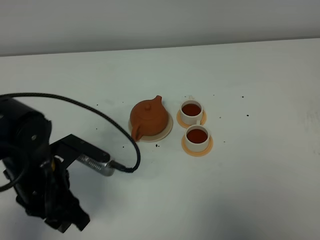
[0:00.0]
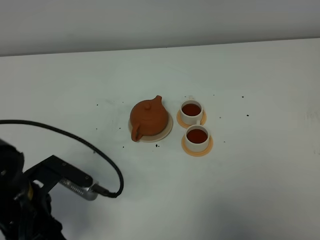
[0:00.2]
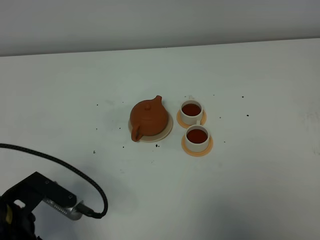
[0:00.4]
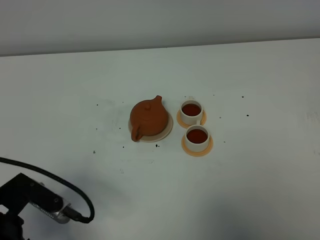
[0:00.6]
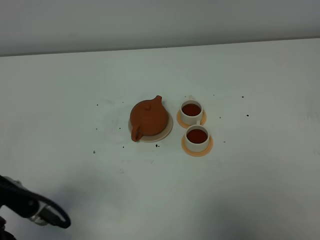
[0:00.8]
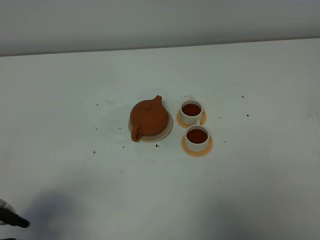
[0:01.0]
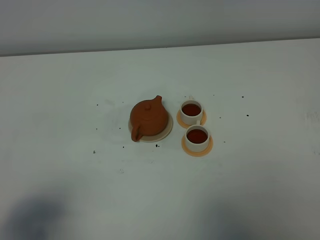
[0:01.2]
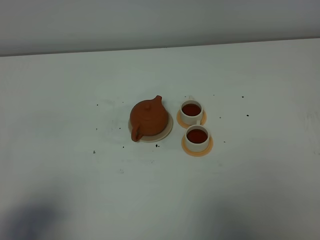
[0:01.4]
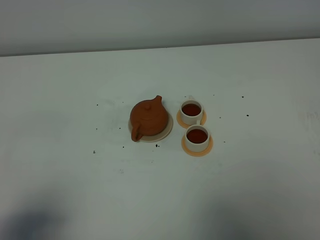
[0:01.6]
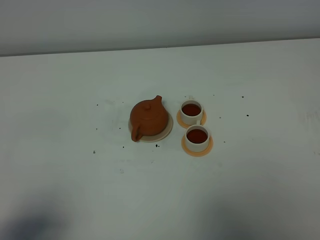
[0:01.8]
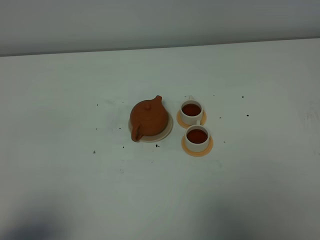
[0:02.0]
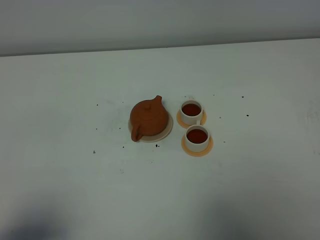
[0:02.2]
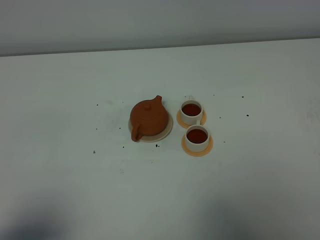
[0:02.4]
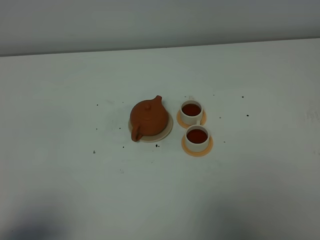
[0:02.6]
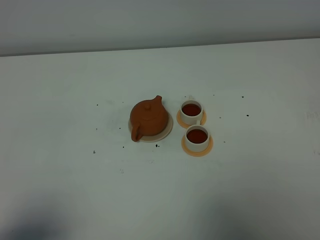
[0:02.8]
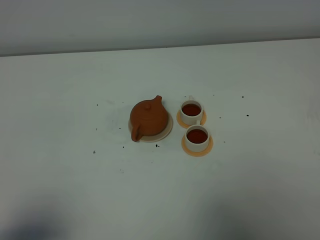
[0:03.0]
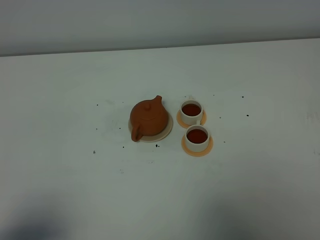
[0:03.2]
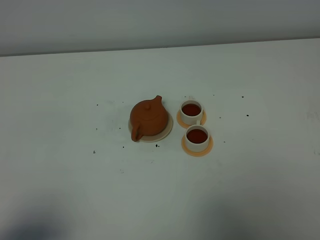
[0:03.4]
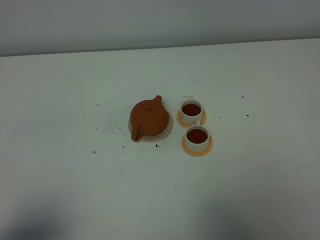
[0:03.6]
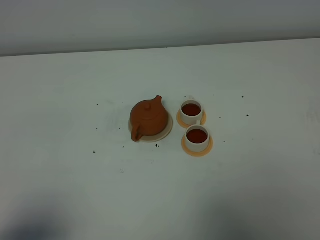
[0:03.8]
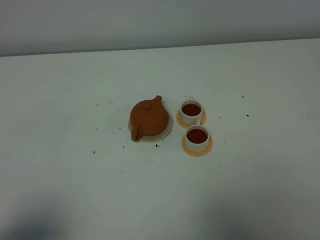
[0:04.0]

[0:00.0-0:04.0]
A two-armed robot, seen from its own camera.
Task of the whole recording: grasp the brown teapot and pour the tea into the two white teacups one by one, put the brown teapot back in its original place.
0:00.0 to 0:01.4: The left gripper travels backward, to the left and upward by some 20 cm.
0:02.6 to 0:04.0: The two grippers keep their place.

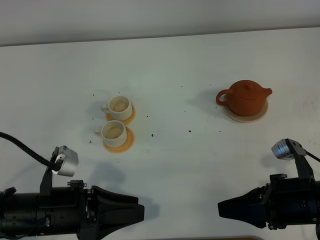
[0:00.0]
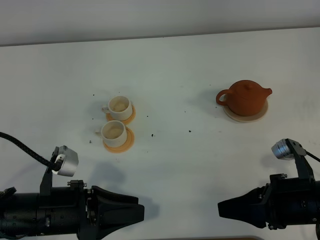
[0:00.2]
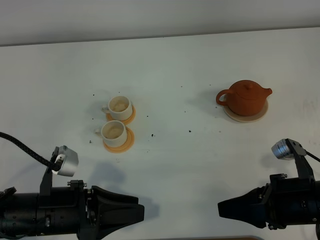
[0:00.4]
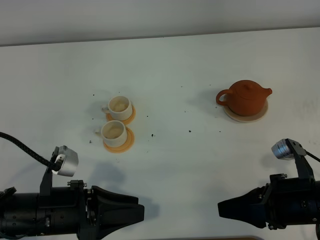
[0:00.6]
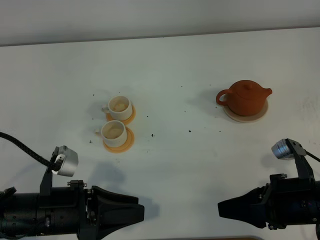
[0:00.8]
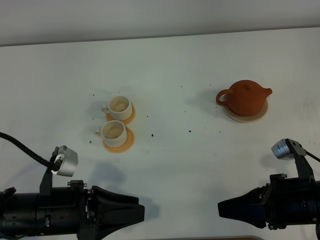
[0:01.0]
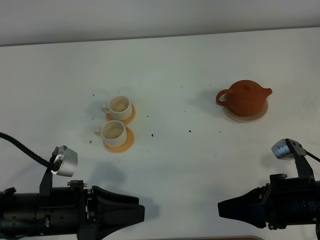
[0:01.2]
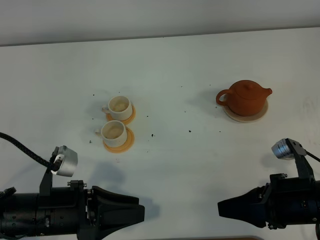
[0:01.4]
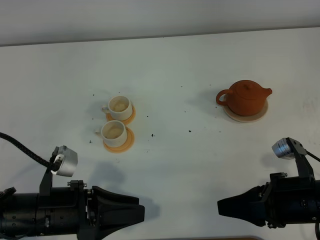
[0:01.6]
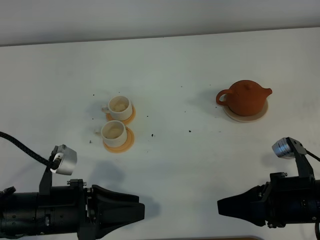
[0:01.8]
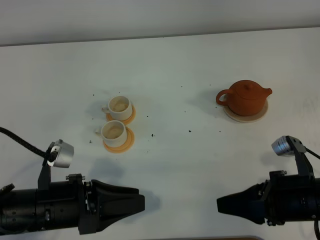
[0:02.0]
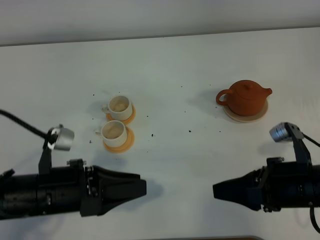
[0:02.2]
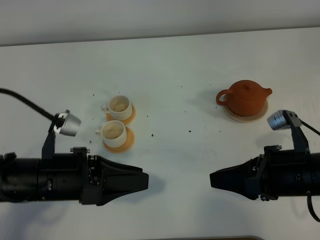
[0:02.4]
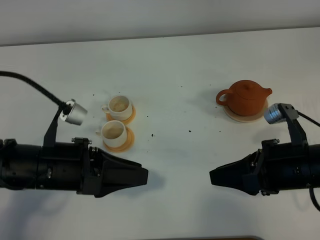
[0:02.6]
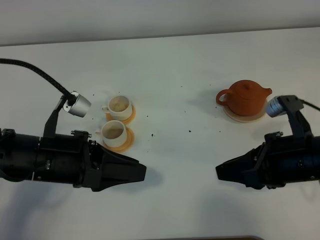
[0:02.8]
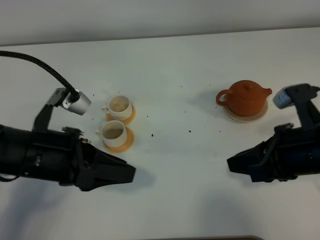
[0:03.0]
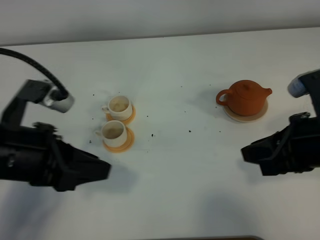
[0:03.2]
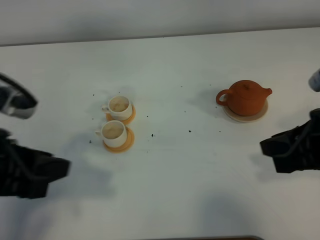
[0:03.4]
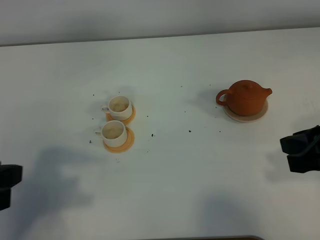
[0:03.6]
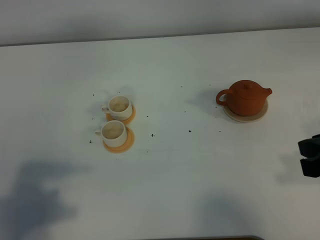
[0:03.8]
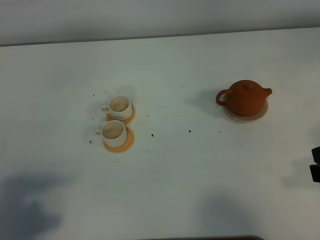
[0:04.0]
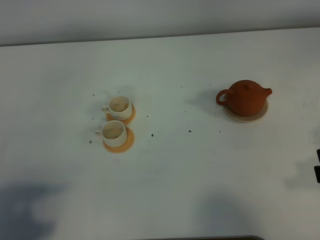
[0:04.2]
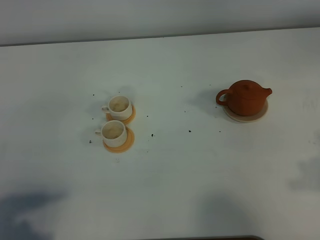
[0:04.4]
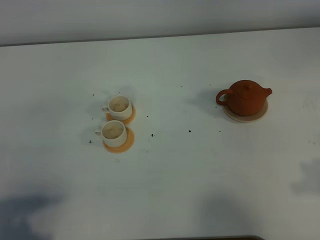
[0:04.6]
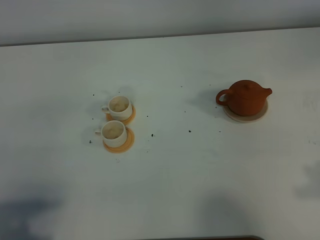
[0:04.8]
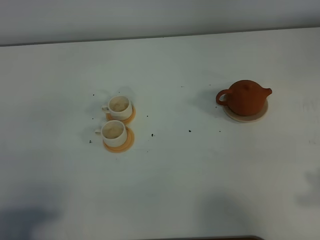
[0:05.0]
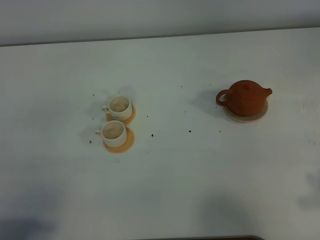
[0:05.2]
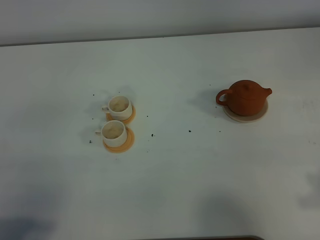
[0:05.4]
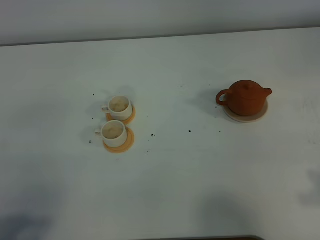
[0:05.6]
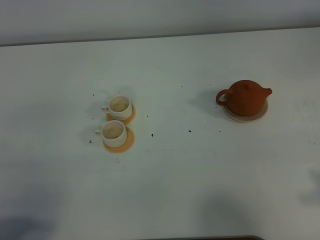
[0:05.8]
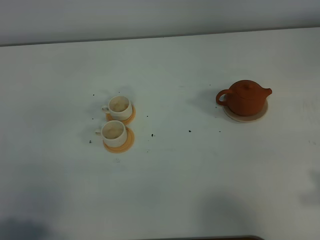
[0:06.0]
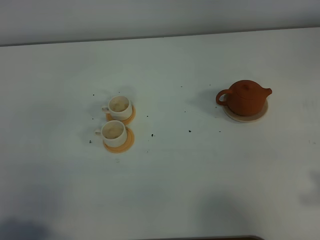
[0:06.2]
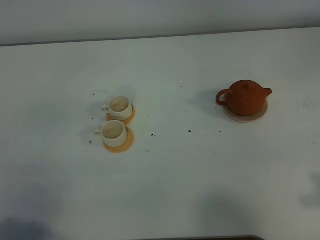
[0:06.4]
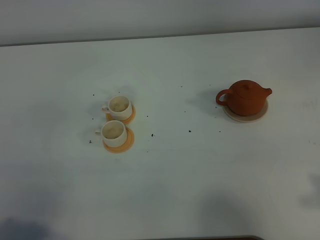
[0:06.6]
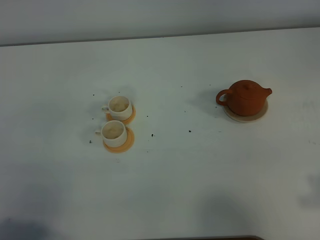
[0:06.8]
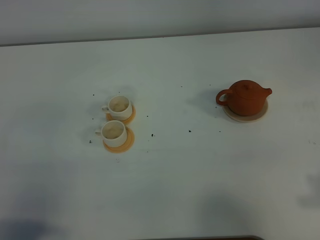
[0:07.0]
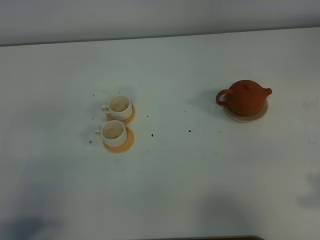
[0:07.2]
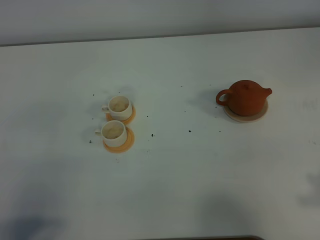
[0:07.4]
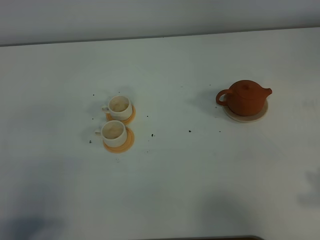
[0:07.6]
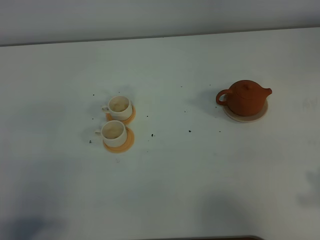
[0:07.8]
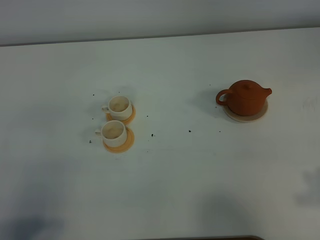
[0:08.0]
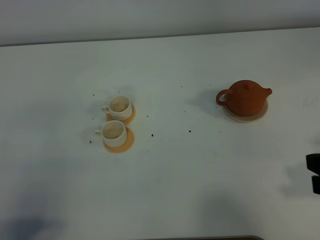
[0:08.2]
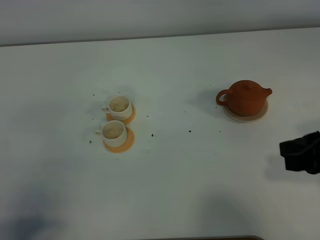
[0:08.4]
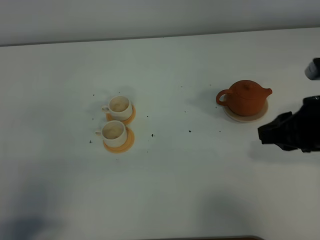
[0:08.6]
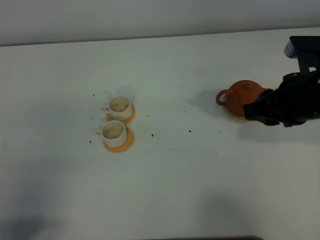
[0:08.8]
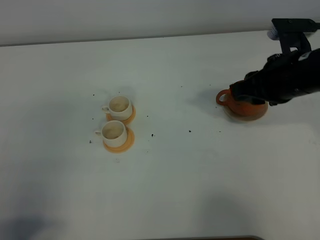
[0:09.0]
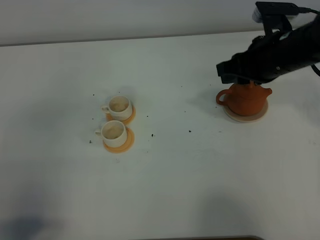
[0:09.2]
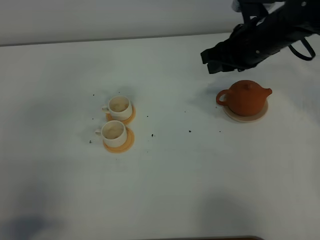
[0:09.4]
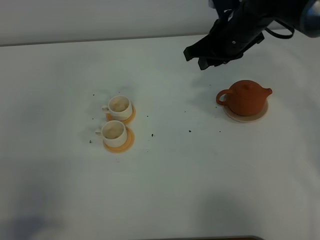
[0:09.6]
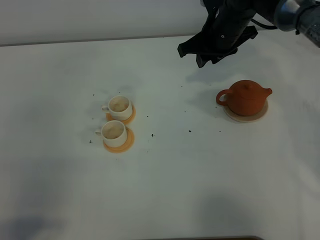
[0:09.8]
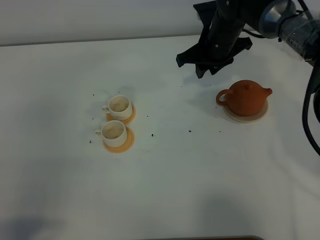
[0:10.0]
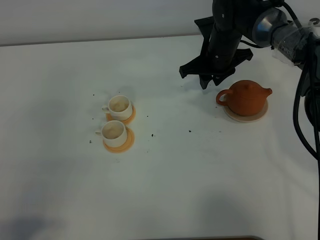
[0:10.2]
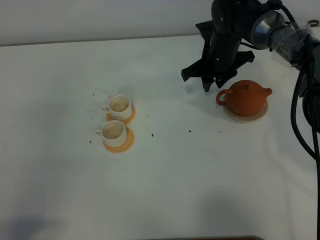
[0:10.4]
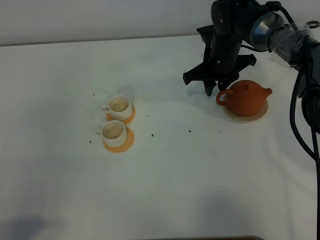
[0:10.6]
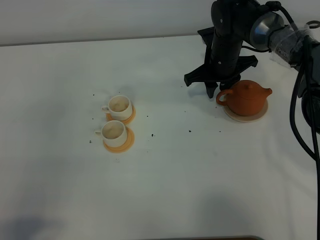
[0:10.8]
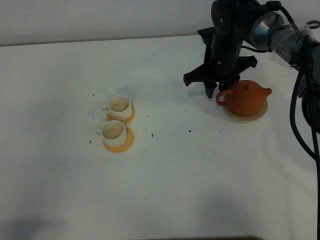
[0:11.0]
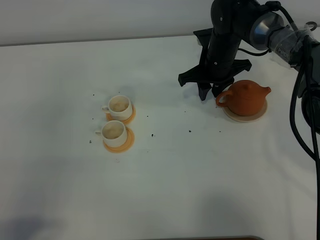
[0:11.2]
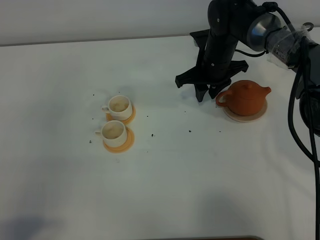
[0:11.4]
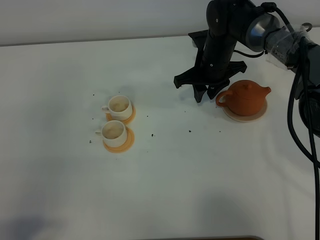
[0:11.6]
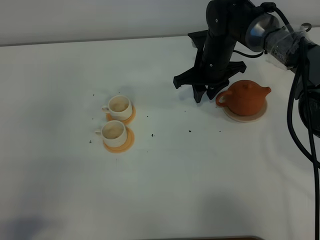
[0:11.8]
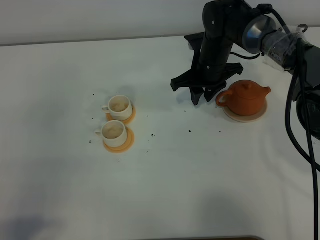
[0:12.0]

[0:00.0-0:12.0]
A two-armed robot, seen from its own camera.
Task of the whole recording: grasp the brown teapot and pour the tea into the two white teacups one by one, put the brown teapot back in its original place.
0:00.0 to 0:01.6: Both grippers stay put.
0:01.6 to 0:03.0: The right gripper heads upward, covering some 5 cm; the left gripper travels upward and forward by roughly 10 cm.
0:03.0 to 0:04.4: The left gripper moves backward and to the left, some 20 cm. Meanwhile the right gripper shifts roughly 10 cm to the right, upward and backward.
0:07.6 to 0:09.0: The right gripper goes some 25 cm forward and to the left.
0:09.0 to 0:10.4: The right gripper heads forward, to the left and downward, covering about 20 cm.
0:10.4 to 0:12.0: The grippers stay close to where they were, moving slightly.

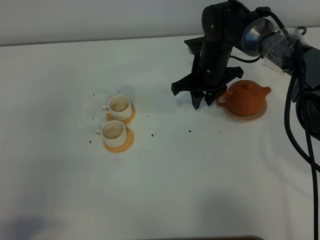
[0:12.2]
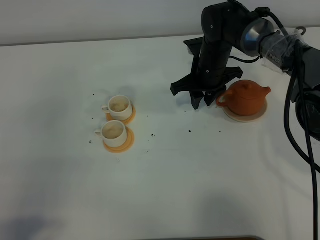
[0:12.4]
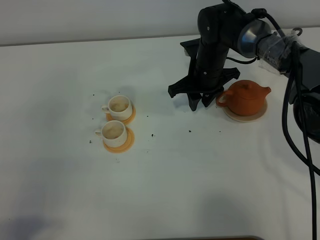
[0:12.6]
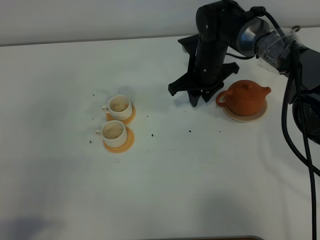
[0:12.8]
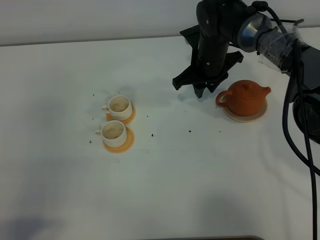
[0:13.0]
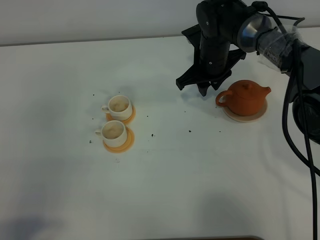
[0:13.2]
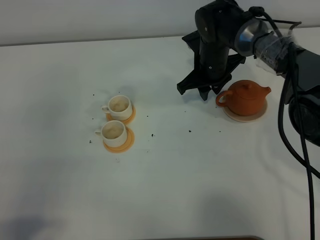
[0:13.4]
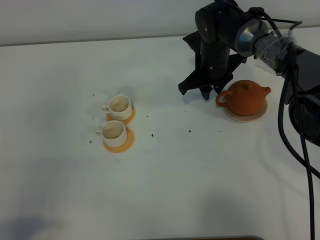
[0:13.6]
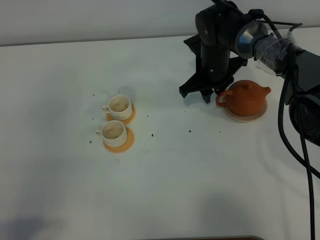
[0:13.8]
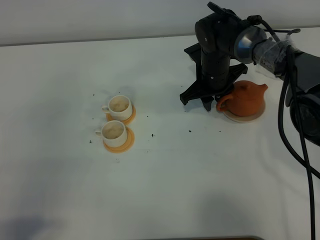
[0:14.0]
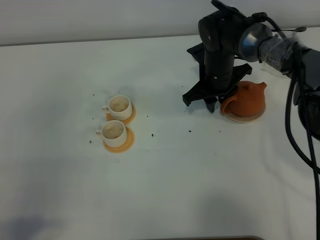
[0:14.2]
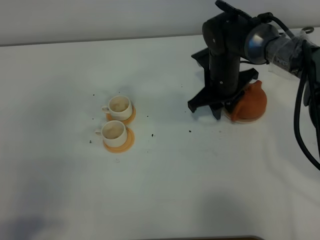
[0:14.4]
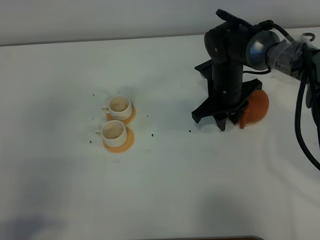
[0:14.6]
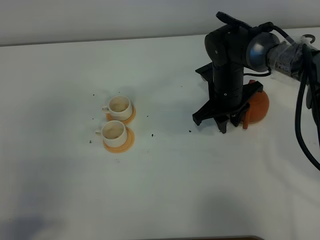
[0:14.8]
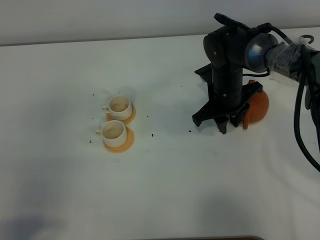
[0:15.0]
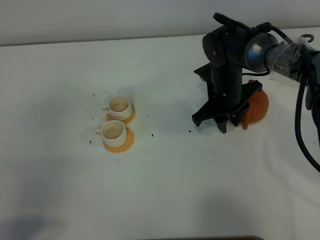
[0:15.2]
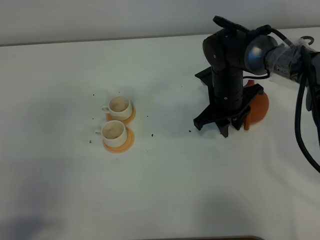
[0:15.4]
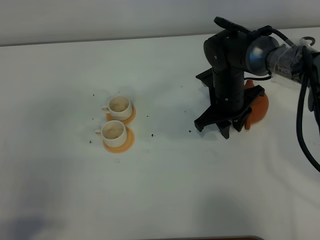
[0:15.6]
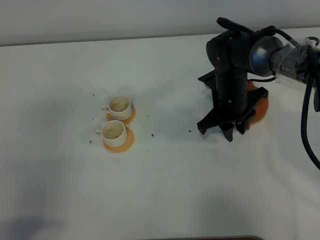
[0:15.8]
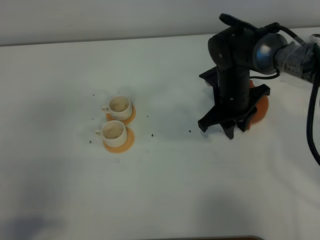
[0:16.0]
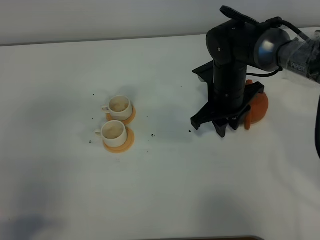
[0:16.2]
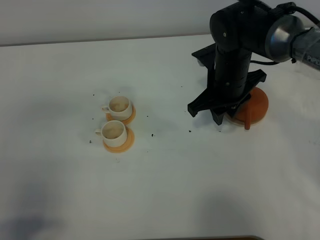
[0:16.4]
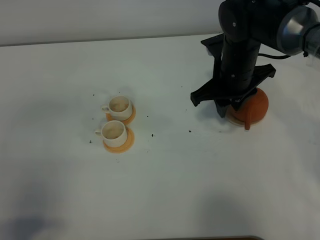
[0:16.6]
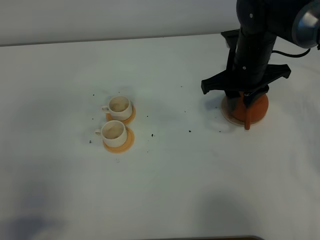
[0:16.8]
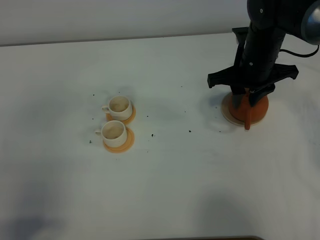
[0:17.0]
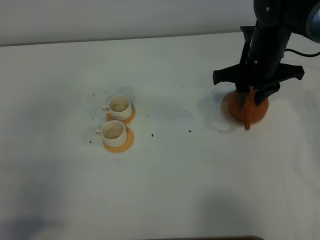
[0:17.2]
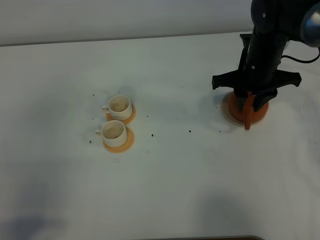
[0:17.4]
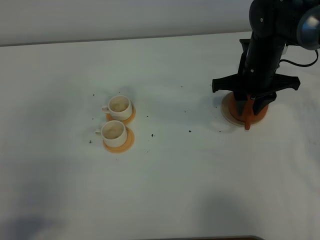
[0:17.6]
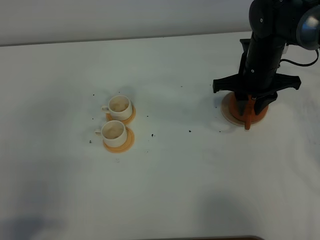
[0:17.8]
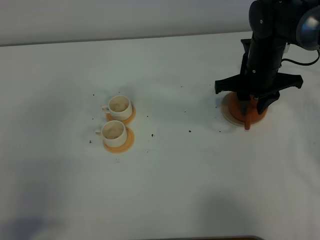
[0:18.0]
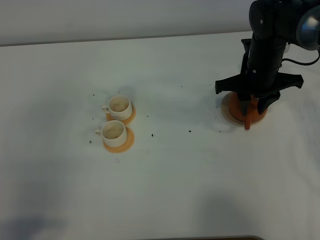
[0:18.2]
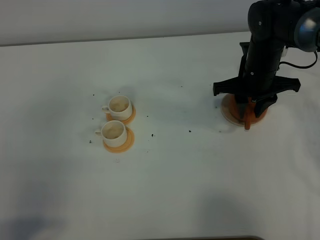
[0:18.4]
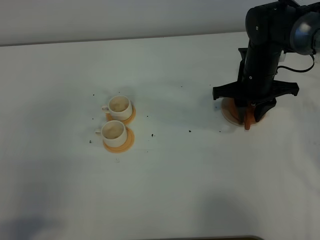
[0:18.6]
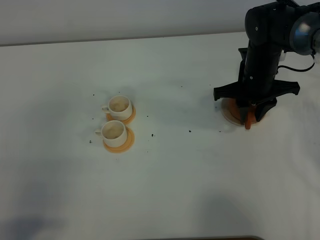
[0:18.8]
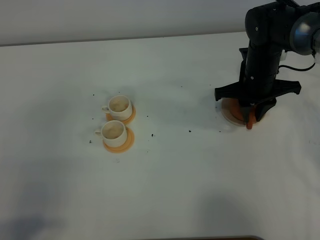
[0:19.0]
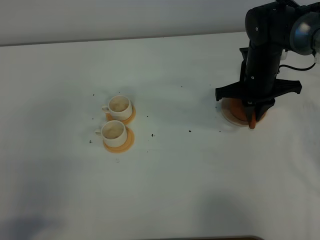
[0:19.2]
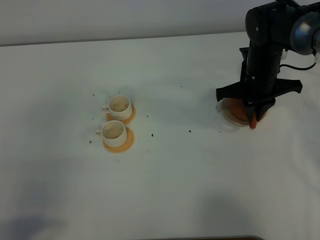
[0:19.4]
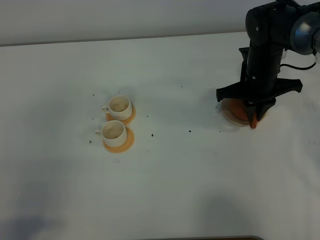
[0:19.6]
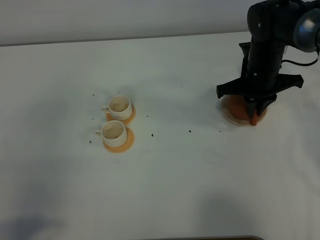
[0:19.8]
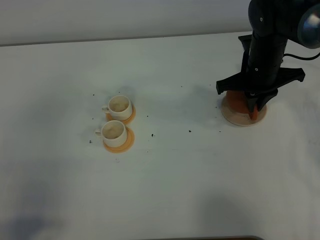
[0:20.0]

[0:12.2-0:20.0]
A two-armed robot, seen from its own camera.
Task of the whole recording: grasp the brown teapot and pour the tea into the two white teacups one by one, put the brown teapot back in its original place.
0:12.2 to 0:13.8: The grippers make only small movements.
0:13.8 to 0:15.4: The right gripper heads backward, covering roughly 5 cm.
0:15.4 to 0:16.8: The right gripper is displaced upward by some 10 cm.
0:16.8 to 0:18.4: The right gripper changes place by roughly 5 cm.
0:18.4 to 0:20.0: The right gripper closes.
